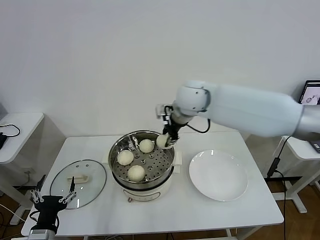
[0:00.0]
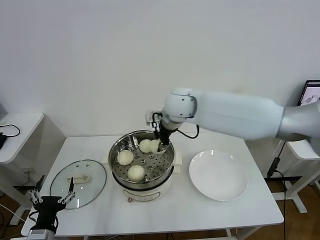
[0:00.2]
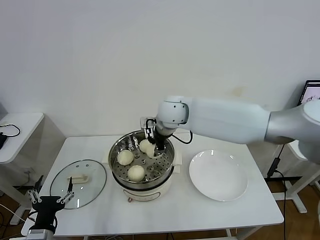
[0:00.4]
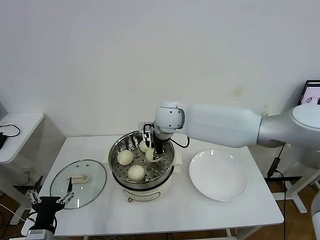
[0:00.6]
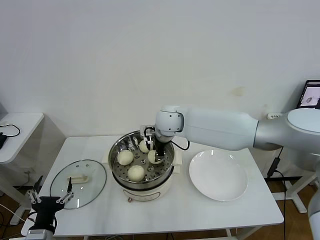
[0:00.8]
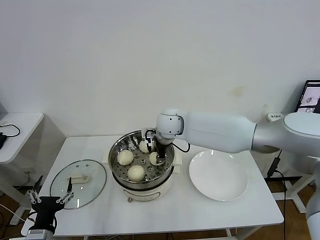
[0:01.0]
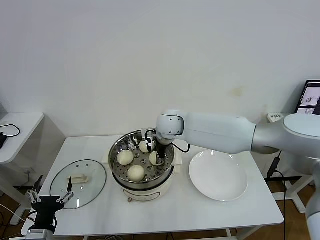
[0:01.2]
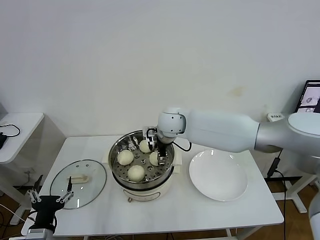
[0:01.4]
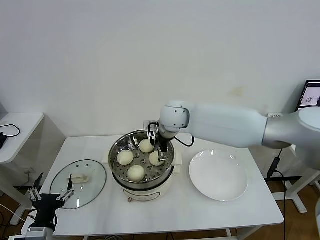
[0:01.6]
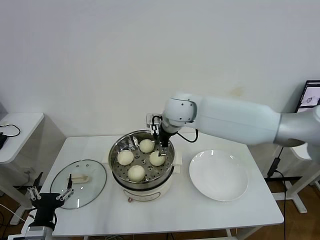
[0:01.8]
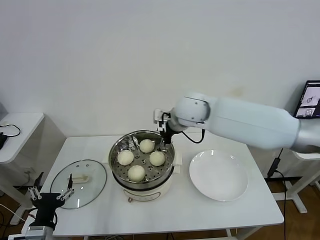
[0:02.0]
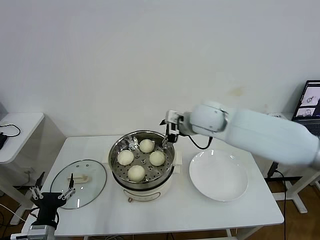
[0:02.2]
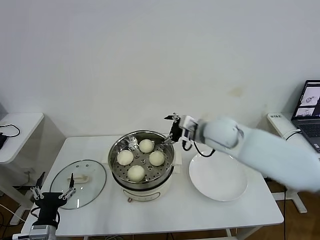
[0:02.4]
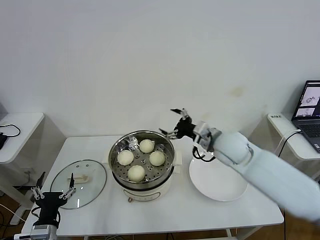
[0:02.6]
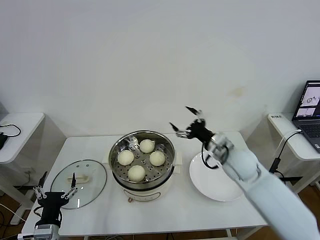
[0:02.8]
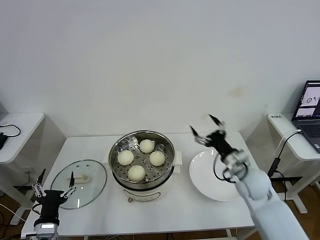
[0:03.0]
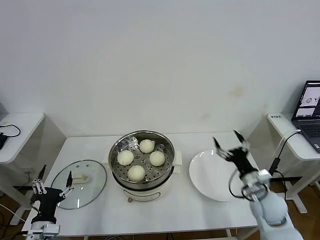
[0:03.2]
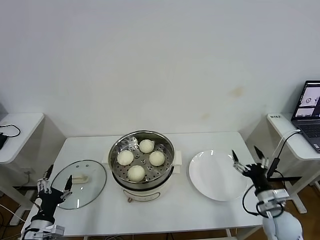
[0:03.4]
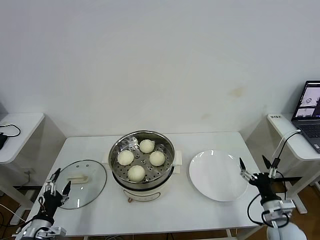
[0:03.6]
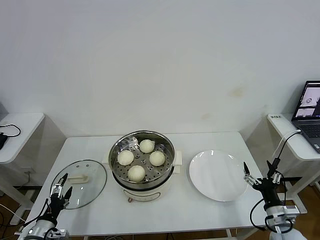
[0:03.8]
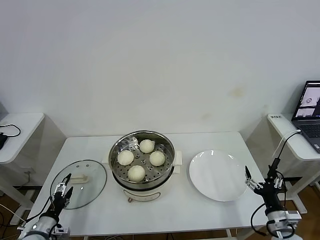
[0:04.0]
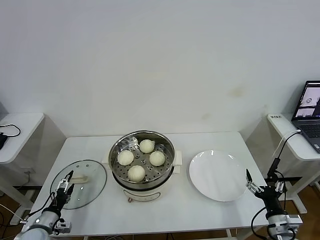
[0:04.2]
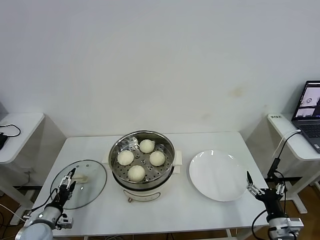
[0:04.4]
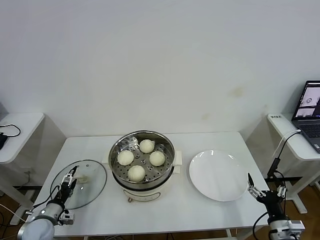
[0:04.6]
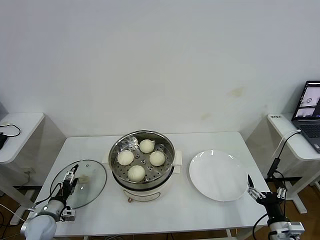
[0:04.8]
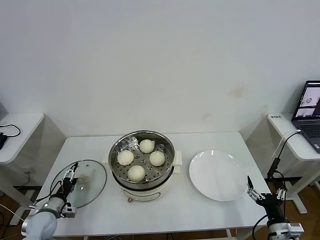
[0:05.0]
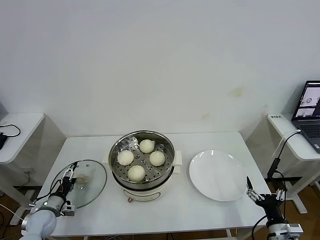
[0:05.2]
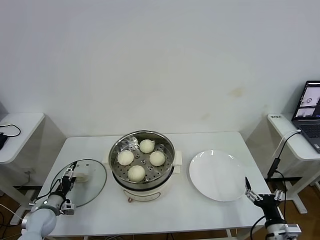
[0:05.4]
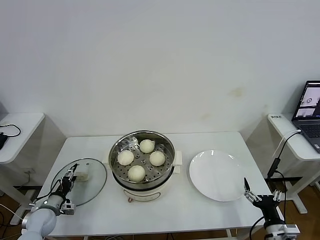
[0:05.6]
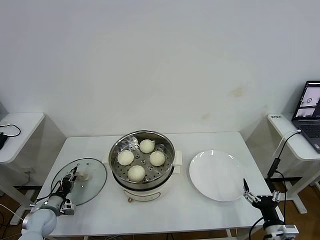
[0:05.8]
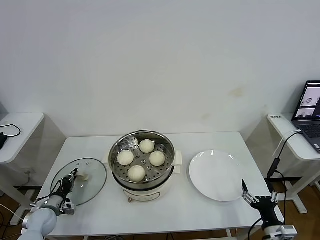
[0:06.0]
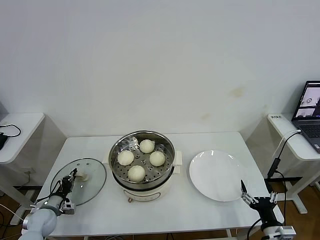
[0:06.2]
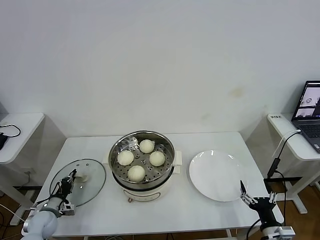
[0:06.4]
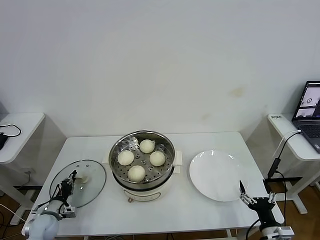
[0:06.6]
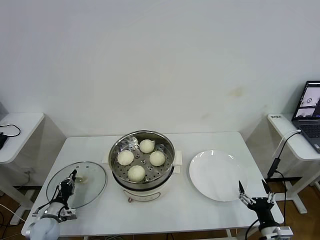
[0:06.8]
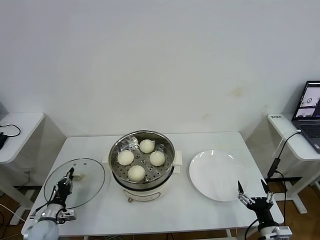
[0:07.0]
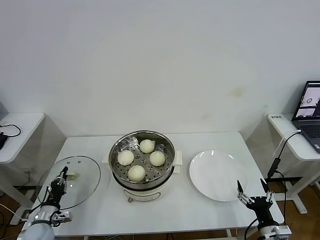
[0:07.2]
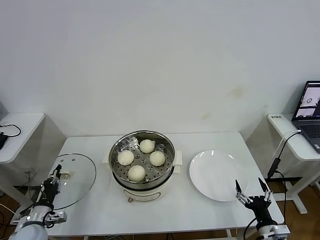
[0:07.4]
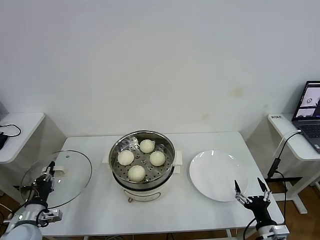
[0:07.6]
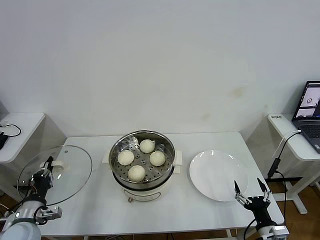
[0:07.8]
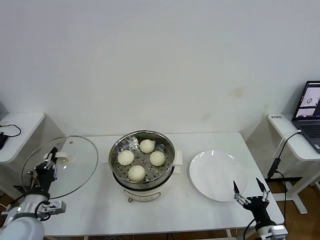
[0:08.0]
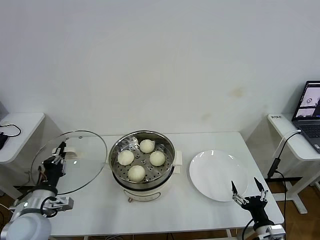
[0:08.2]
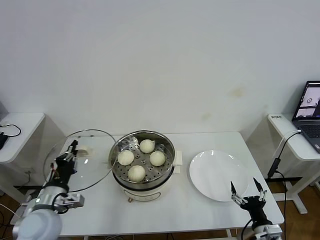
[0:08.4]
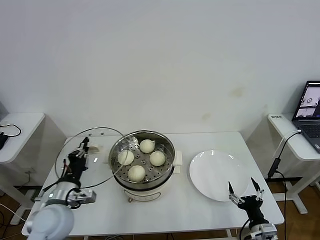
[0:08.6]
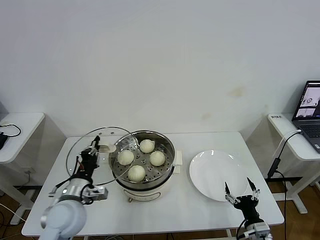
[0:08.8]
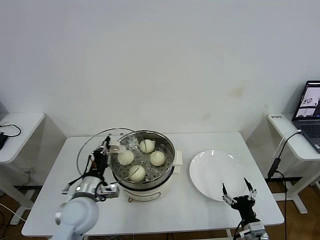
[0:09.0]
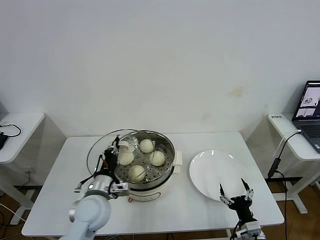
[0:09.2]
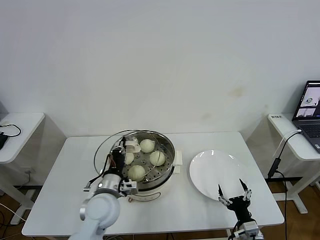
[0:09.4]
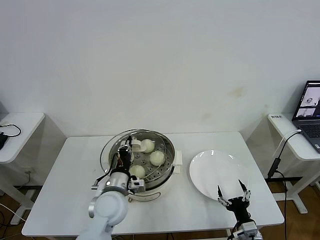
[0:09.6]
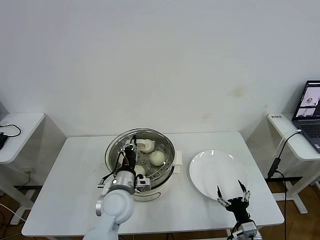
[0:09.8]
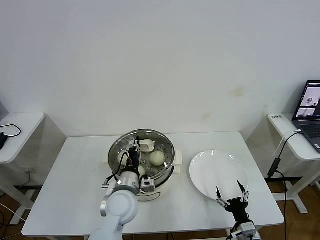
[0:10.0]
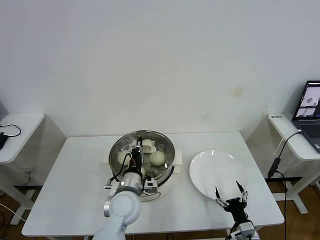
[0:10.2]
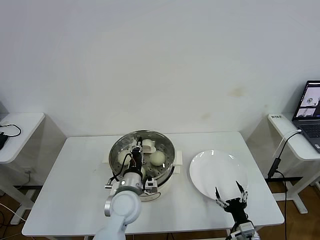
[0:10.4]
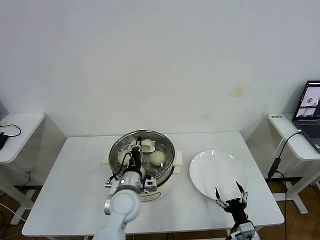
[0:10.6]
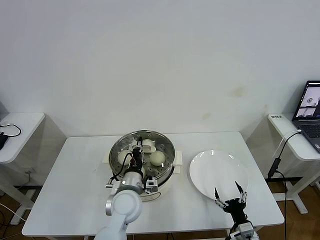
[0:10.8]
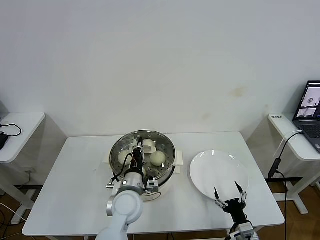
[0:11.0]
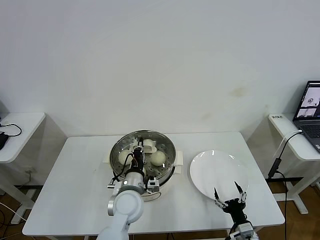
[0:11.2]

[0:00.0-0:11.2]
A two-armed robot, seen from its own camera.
Task of the whole recording: take steamed baozi put them in steamer then cover it.
Step, 0:00.0 to 0:01.6: Place the baozi on the steamer with right gripper.
Step, 0:01.8 to 0:06.2: Grasp the pot lid with left gripper.
0:00.0 to 0:01.6: The right gripper travels downward by roughly 5 cm, and opens up.
0:01.6 to 0:03.2: The right gripper moves to the right, backward and downward, some 40 cm. The left gripper ends up some 5 cm from where it was.
0:03.2 to 0:04.8: The left gripper shifts about 15 cm forward, downward and to the left. Meanwhile the right gripper goes about 15 cm backward and downward.
0:04.8 to 0:06.4: The left gripper closes up.
0:06.4 to 0:08.0: The left gripper heads upward, backward and to the right, covering some 20 cm.
0:08.0 to 0:09.6: The right gripper shifts by approximately 5 cm. The left gripper heads to the right, covering roughly 25 cm.
0:09.6 to 0:11.2: The left gripper moves some 5 cm.

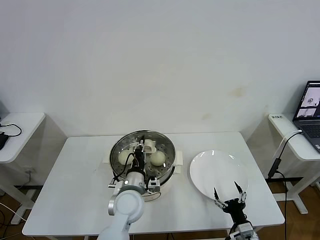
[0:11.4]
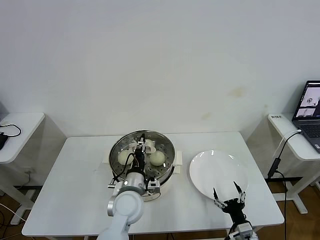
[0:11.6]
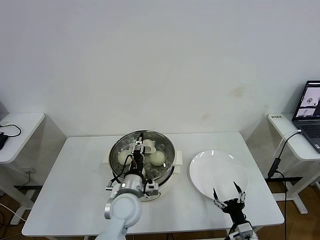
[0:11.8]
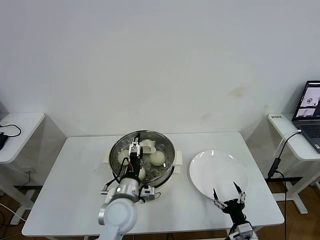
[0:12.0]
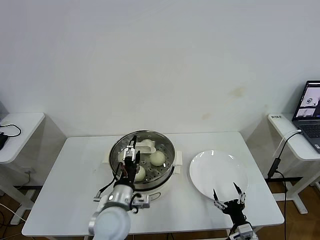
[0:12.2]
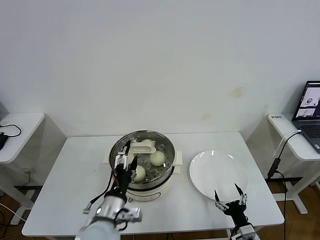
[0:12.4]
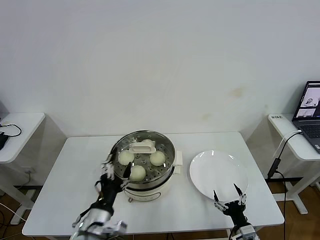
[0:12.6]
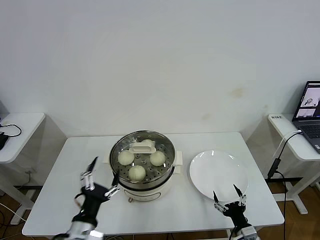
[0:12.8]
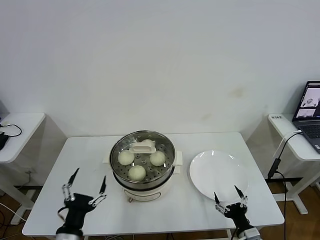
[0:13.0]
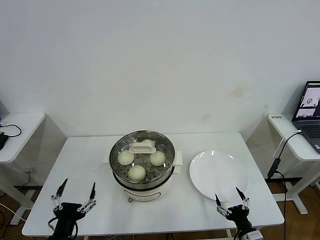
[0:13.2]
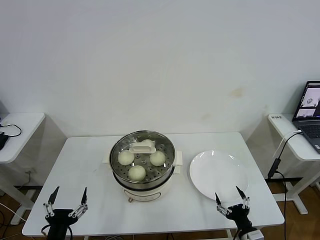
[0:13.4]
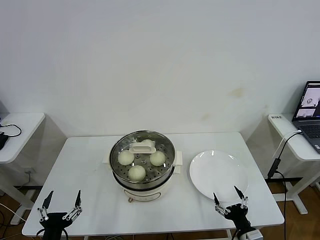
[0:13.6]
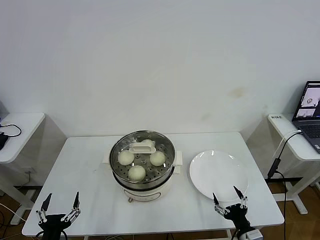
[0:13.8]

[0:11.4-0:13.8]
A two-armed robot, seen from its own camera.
Task of the whole recording: take steamed baozi put them in steamer then cover it.
0:11.4 to 0:12.6: The left gripper goes about 15 cm backward and to the left, and opens up.
0:12.6 to 0:13.8: The left gripper is displaced to the left, backward and downward by roughly 20 cm.
